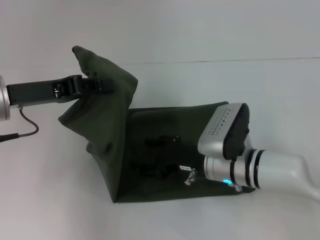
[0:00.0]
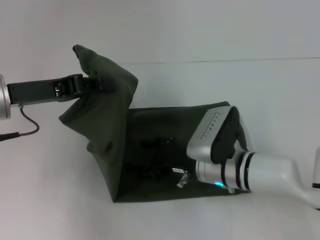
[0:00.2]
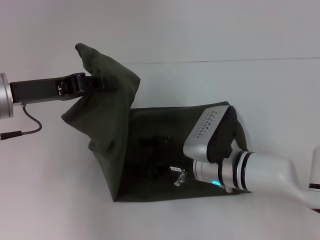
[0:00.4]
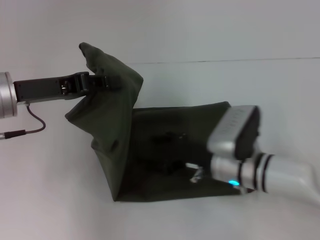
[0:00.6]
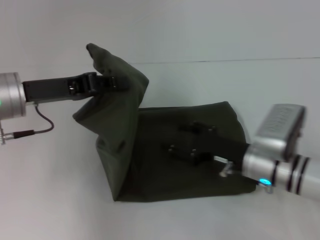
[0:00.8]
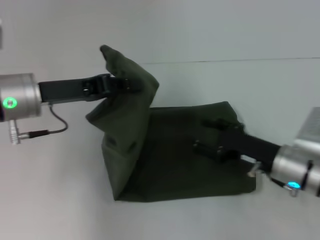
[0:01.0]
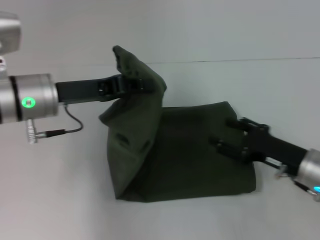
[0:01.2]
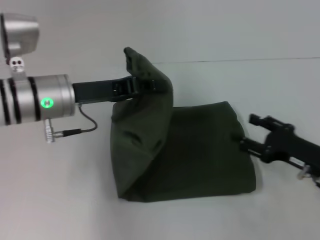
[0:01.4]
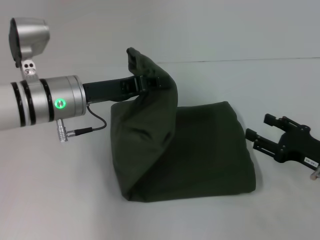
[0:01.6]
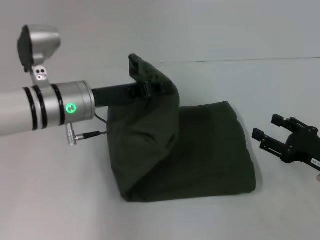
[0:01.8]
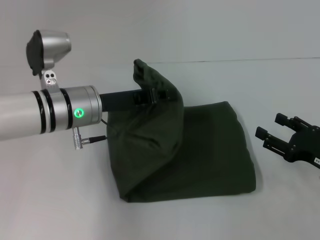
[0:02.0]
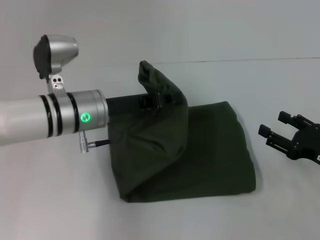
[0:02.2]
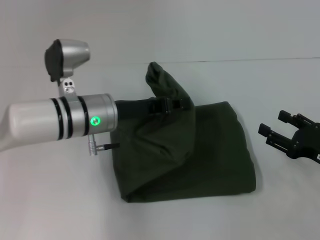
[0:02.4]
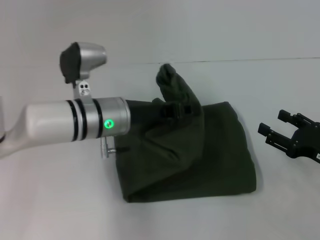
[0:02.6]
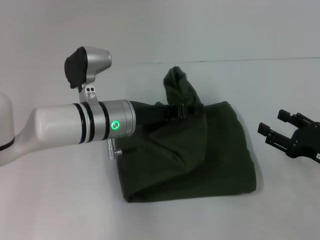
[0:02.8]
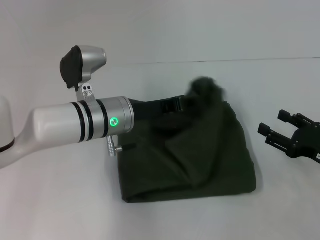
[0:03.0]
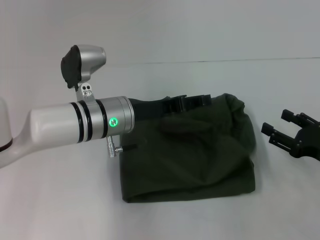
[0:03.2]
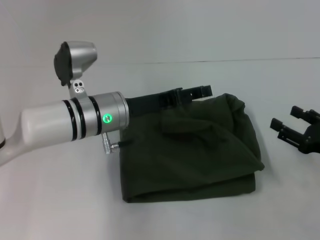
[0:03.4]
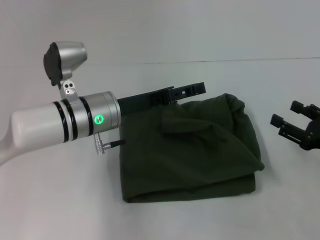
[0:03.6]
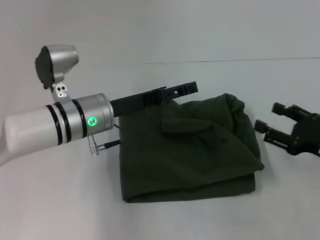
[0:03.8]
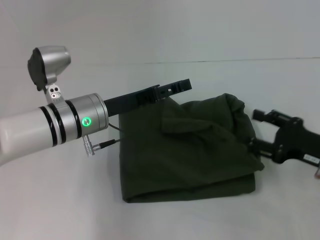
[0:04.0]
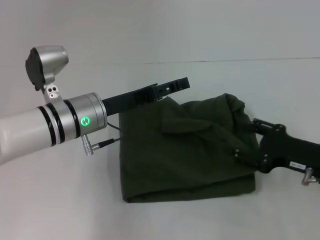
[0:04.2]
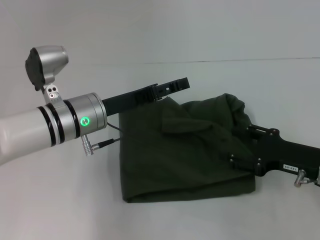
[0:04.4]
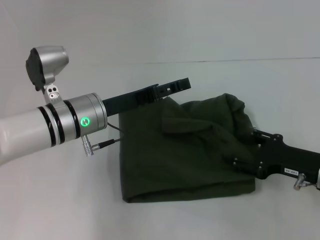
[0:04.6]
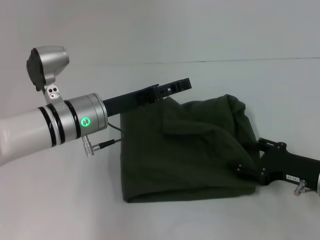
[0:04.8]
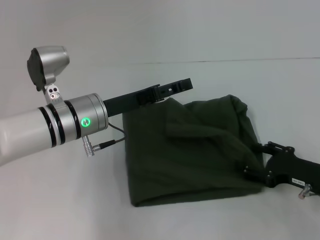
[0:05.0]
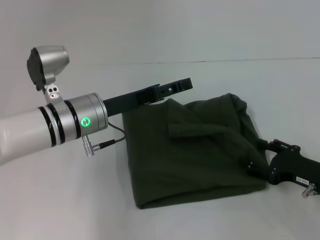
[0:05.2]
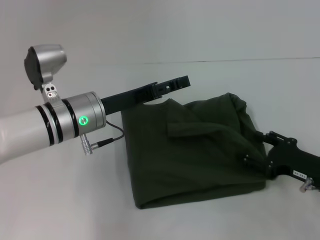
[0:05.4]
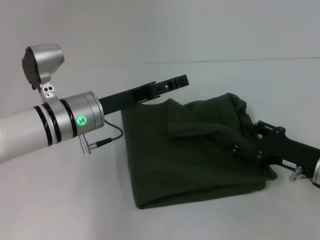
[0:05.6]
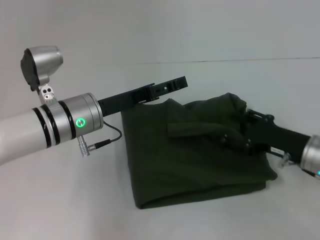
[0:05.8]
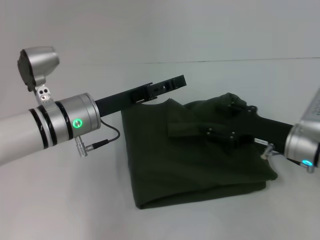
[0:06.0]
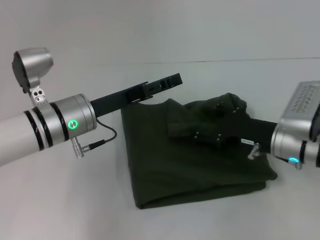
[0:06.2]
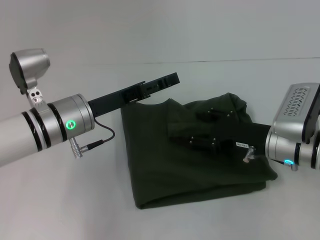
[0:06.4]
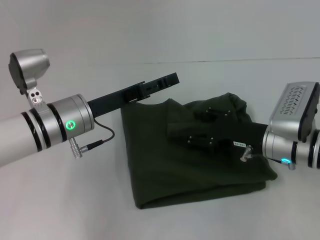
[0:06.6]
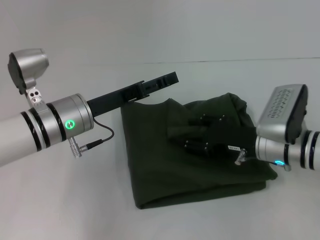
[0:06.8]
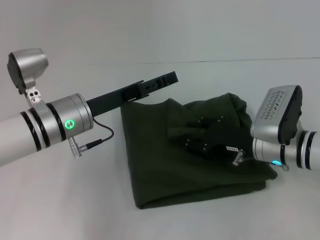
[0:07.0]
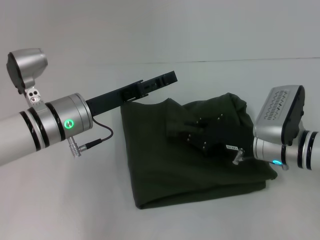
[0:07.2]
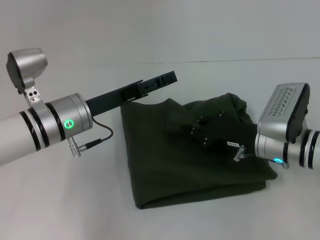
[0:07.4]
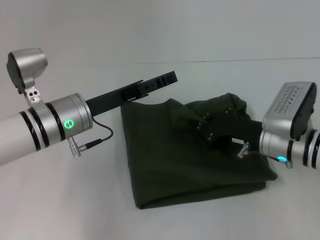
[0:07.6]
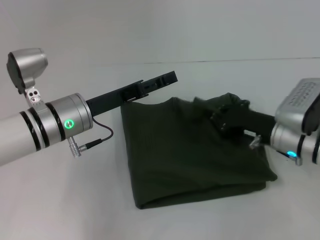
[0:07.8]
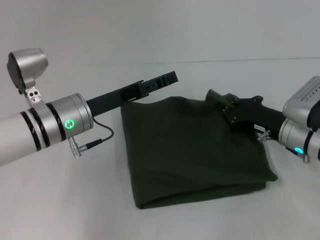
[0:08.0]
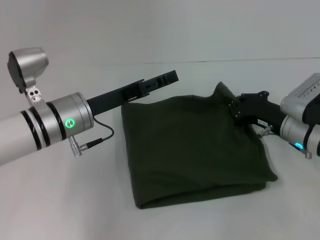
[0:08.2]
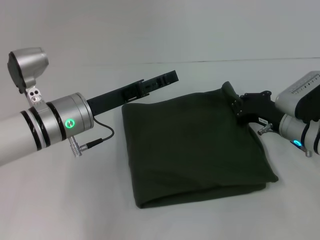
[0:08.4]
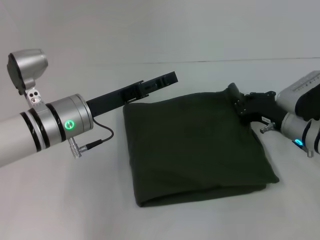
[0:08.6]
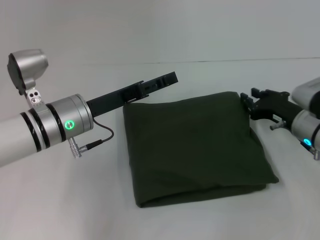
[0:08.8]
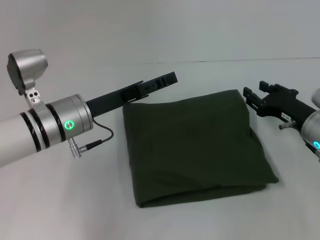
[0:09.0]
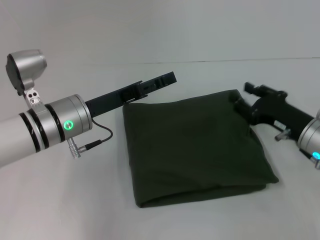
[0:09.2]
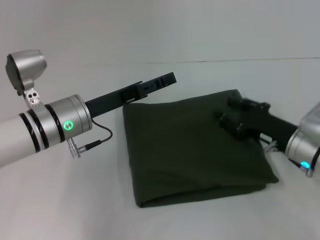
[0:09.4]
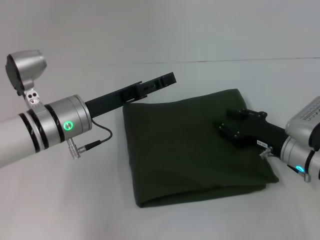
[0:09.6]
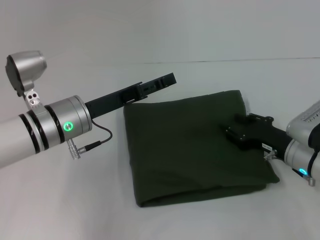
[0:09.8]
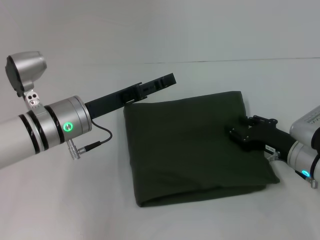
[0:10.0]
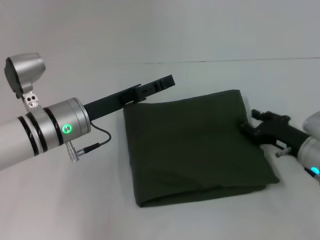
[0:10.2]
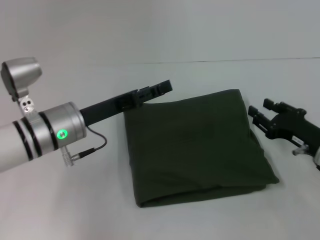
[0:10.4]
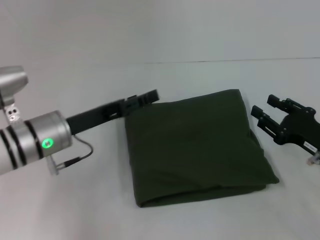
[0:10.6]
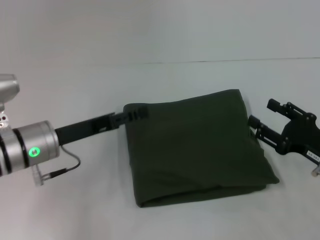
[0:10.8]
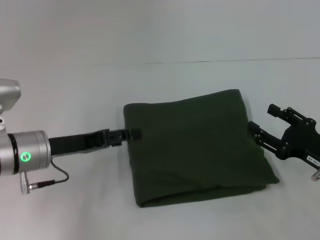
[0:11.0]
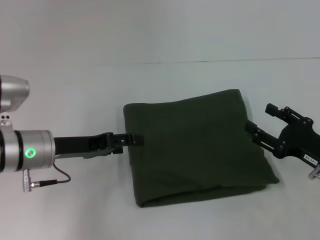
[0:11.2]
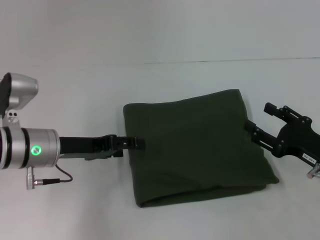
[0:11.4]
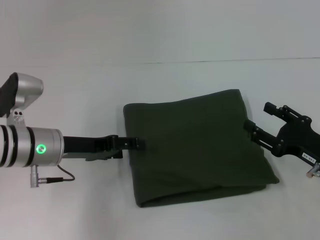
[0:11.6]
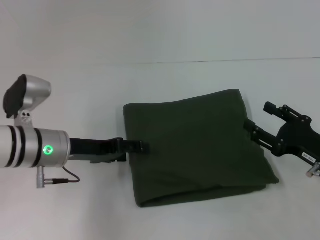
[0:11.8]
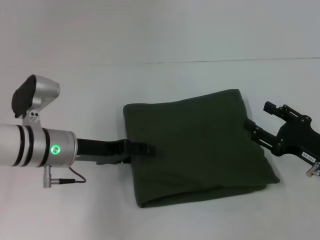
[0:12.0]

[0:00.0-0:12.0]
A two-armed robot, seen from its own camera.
Step, 0:00.0 to 0:03.4: Fold the clothes with your left hand.
0:00.0 to 0:01.6: The left gripper shifts roughly 10 cm to the right; the right gripper is displaced to the right by approximately 20 cm.
0:01.6 to 0:03.0: The left gripper goes some 5 cm to the right.
0:03.0 to 0:04.4: The left gripper opens.
0:04.4 to 0:06.0: The right gripper ends up approximately 5 cm from where it was.
0:06.0 to 0:07.6: The right gripper closes up.
0:07.6 to 0:09.0: The right gripper goes about 5 cm to the right, and opens up.
0:09.0 to 0:10.4: There are only small adjustments of the grippers.

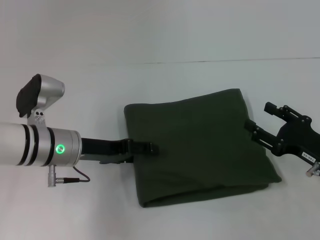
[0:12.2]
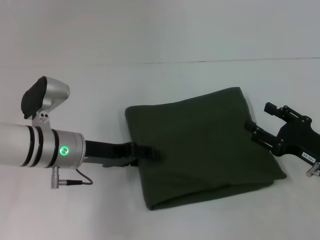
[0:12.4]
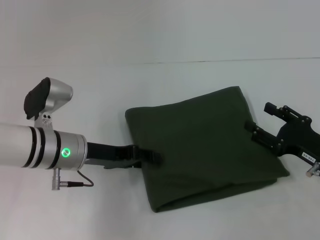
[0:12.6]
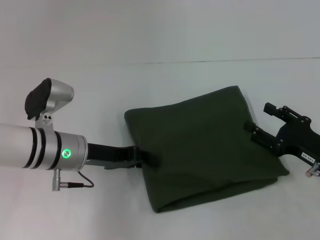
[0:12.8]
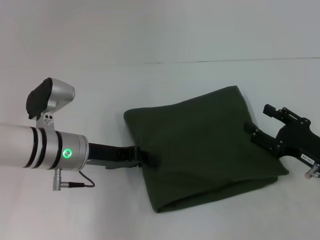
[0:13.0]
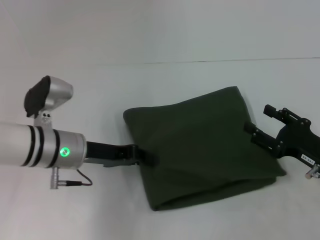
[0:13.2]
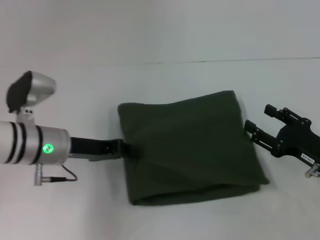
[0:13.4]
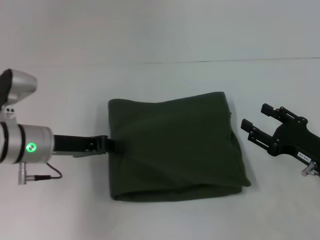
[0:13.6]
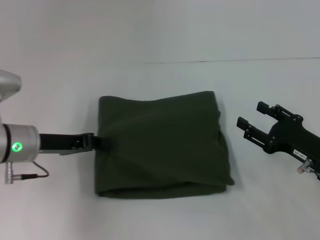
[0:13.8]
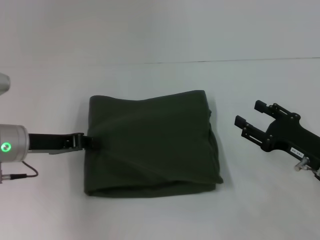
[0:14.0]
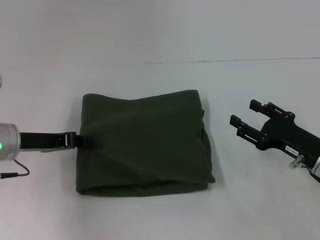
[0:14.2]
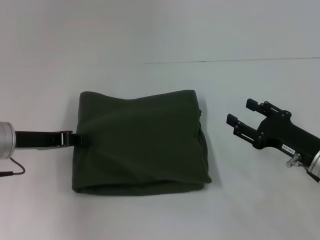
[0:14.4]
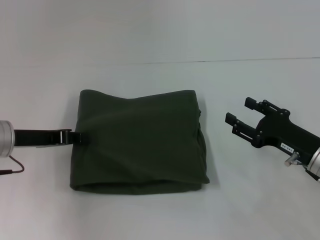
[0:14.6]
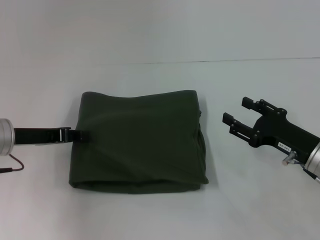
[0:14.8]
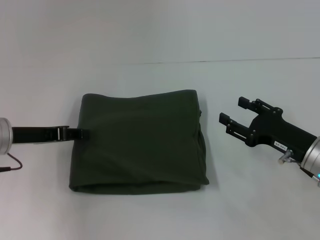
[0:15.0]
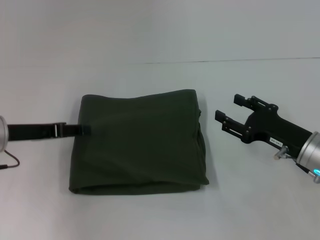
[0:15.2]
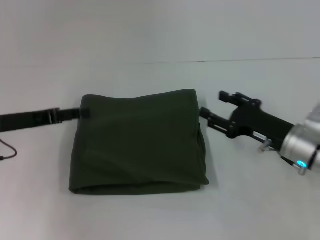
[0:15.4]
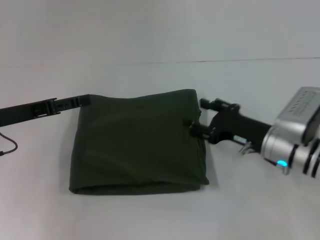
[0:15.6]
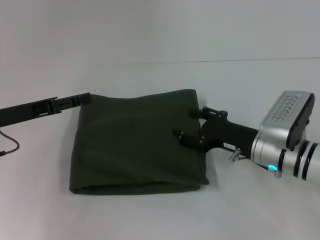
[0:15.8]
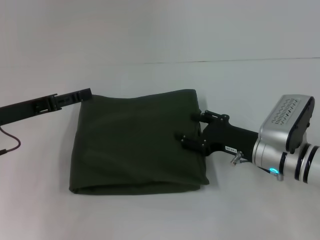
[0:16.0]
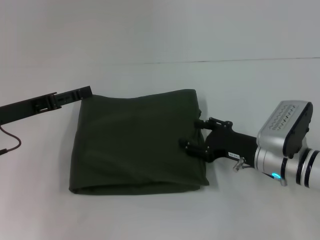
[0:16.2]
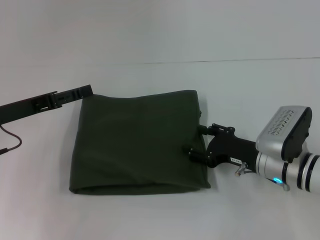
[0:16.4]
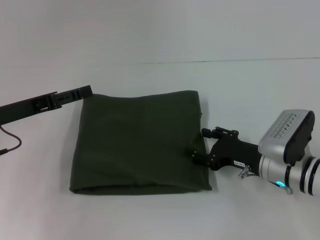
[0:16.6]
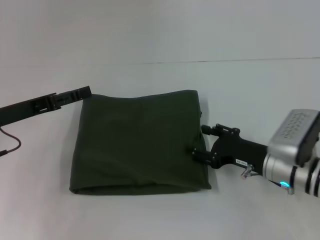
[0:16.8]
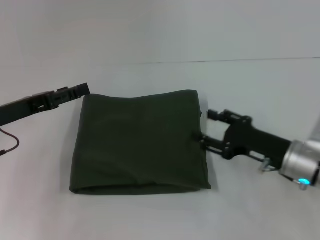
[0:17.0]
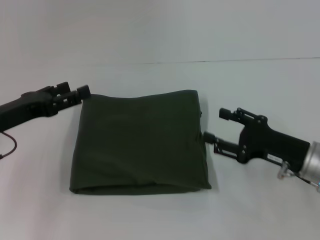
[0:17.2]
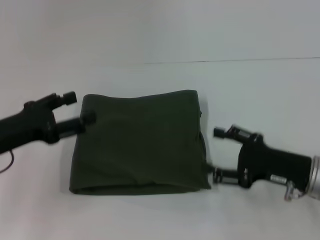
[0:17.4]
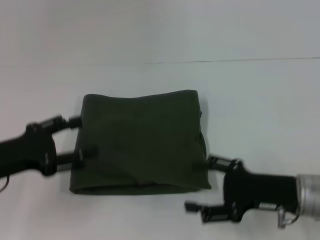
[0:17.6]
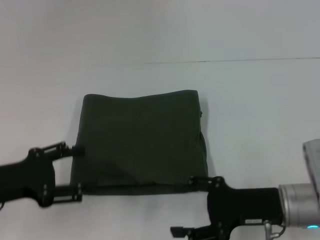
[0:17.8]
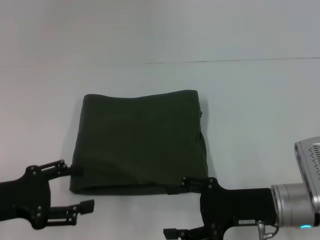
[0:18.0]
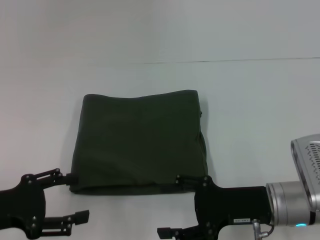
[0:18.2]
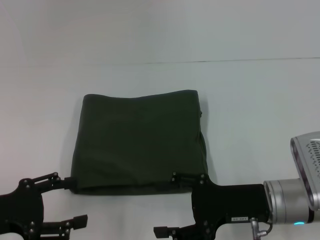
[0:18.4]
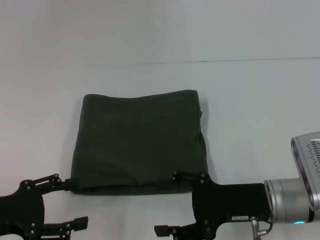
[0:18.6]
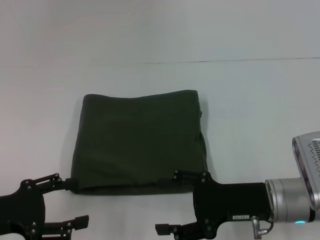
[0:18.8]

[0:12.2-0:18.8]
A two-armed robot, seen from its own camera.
0:12.2 to 0:13.8: The left gripper travels to the left by about 5 cm, and closes.
0:13.8 to 0:15.4: The right gripper moves roughly 5 cm; the left gripper ends up approximately 5 cm from where it was, and opens its fingers.
0:17.2 to 0:18.8: The left gripper shifts some 10 cm backward; the right gripper heads to the left, covering some 5 cm.

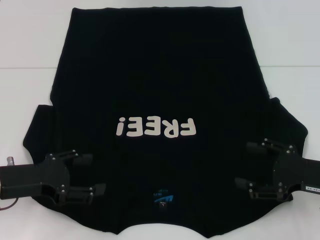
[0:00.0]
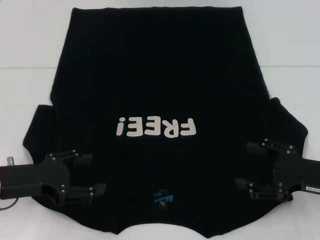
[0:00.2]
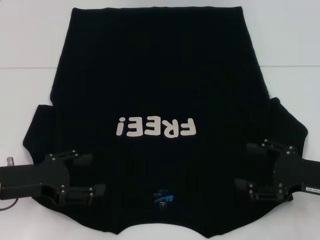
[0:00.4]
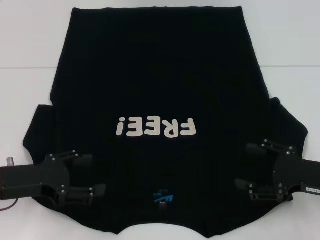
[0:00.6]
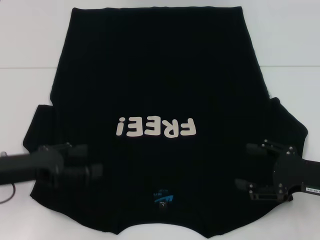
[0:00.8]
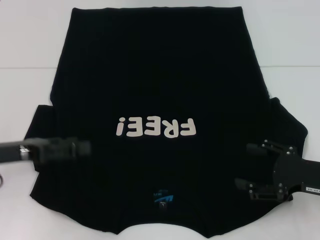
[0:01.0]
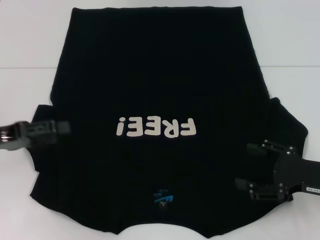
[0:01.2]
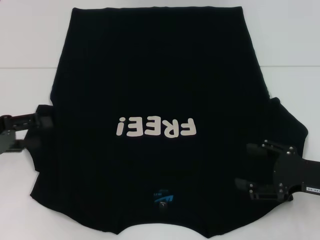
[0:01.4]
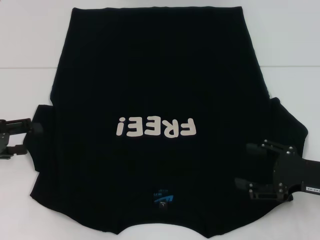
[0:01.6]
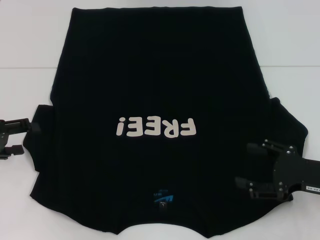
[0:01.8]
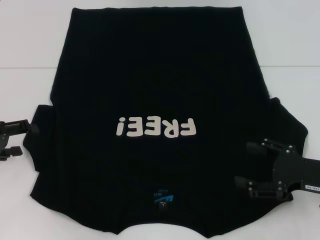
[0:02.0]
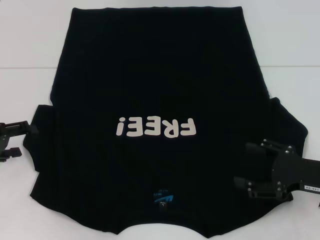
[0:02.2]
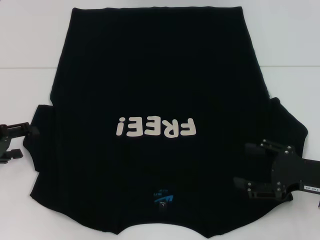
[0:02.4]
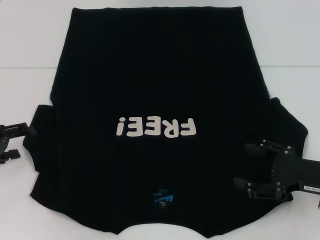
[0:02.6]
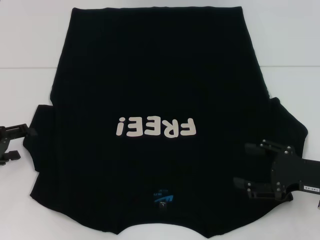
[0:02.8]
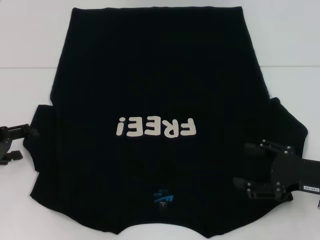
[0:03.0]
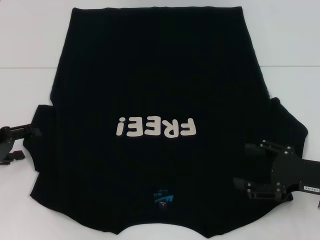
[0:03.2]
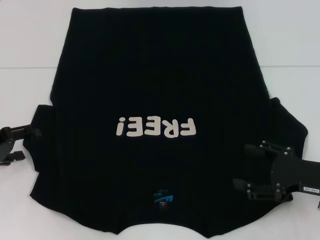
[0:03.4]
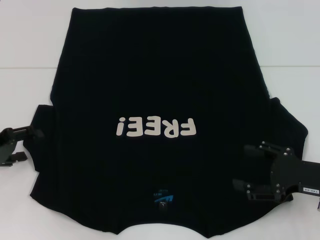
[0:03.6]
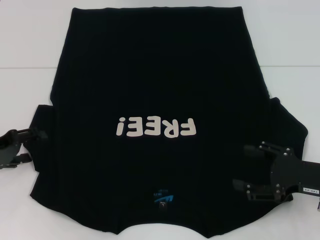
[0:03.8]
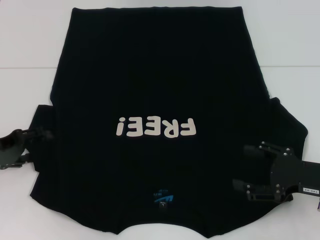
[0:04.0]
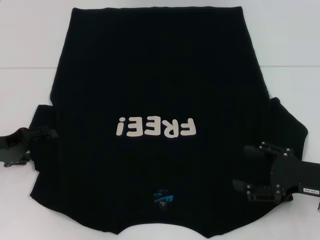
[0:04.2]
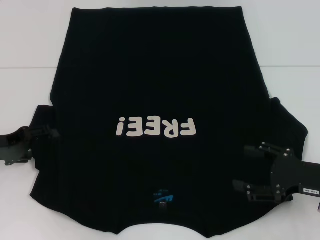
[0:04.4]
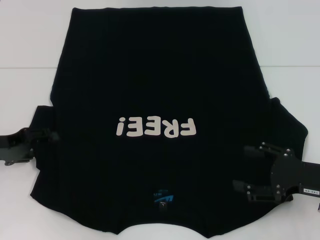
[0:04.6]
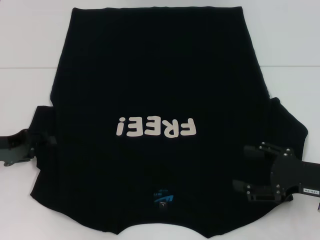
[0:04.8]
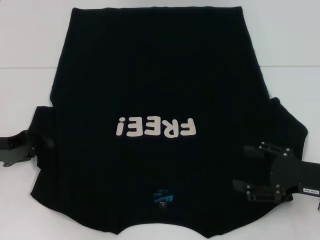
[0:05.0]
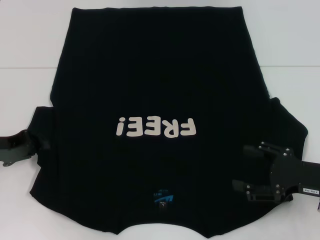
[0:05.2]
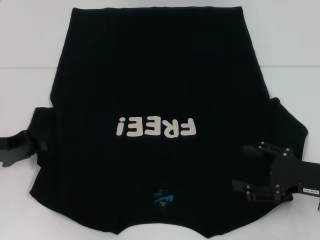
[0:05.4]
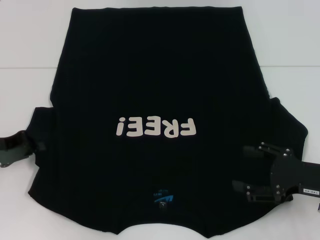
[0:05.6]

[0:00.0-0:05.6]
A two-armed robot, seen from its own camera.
0:00.0 to 0:01.4: The left gripper heads to the left, covering approximately 5 cm.
0:02.8 to 0:04.2: The grippers move only a little.
0:04.2 to 0:05.6: The left gripper closes up.
